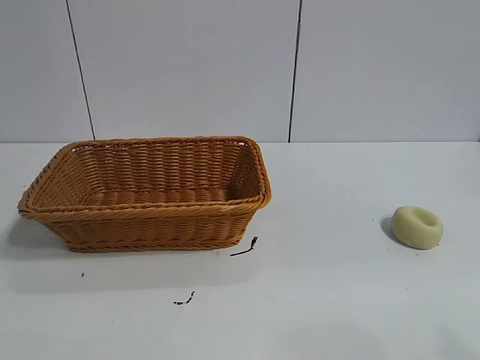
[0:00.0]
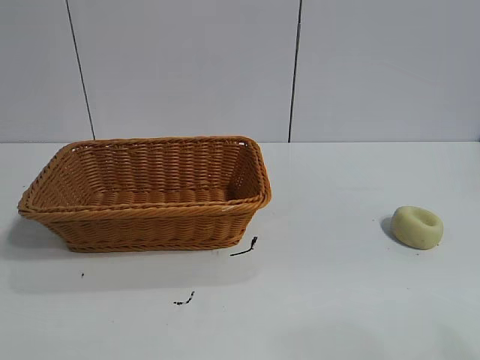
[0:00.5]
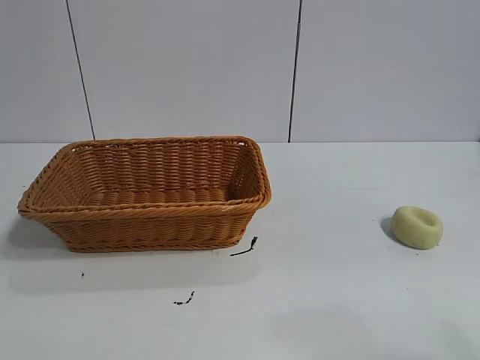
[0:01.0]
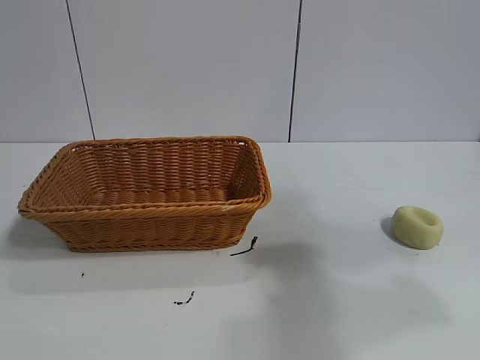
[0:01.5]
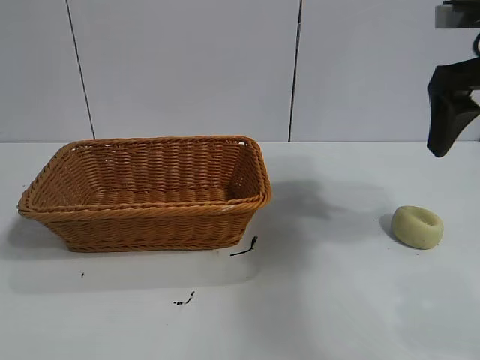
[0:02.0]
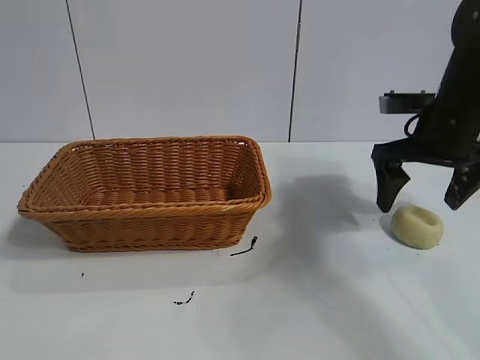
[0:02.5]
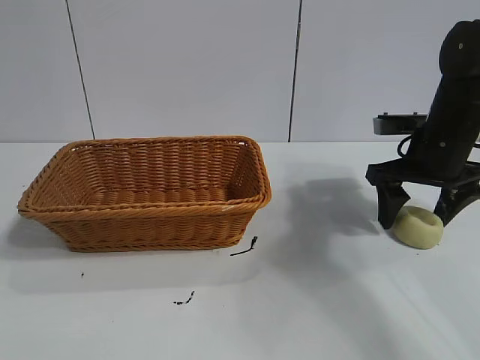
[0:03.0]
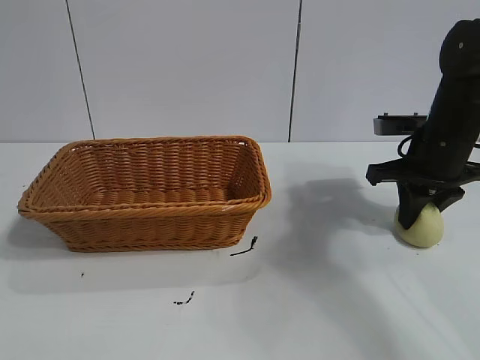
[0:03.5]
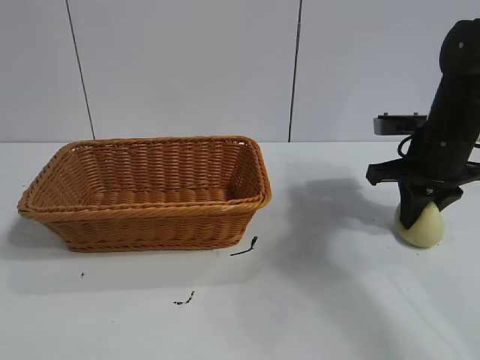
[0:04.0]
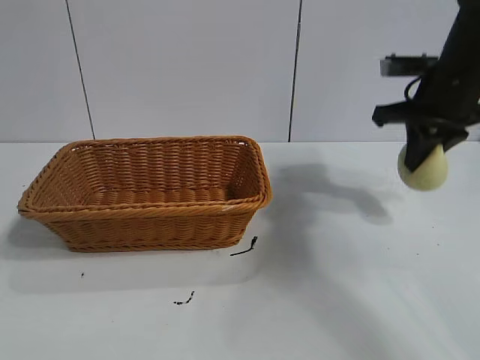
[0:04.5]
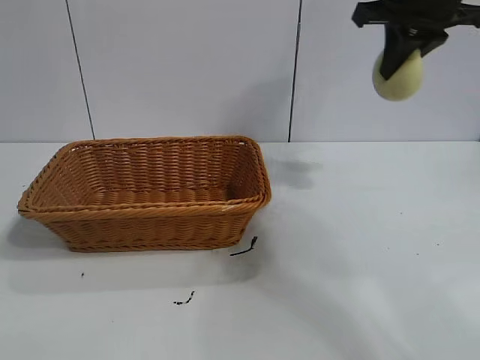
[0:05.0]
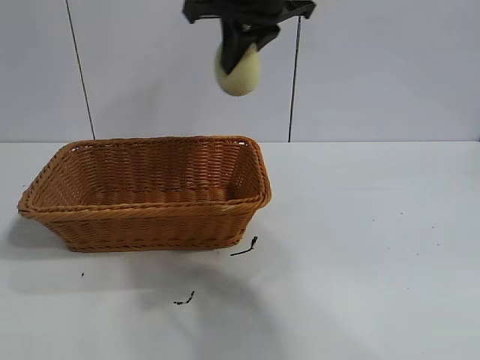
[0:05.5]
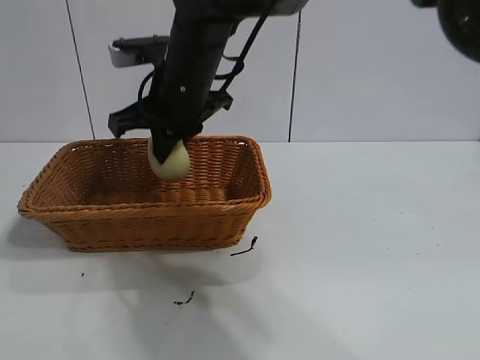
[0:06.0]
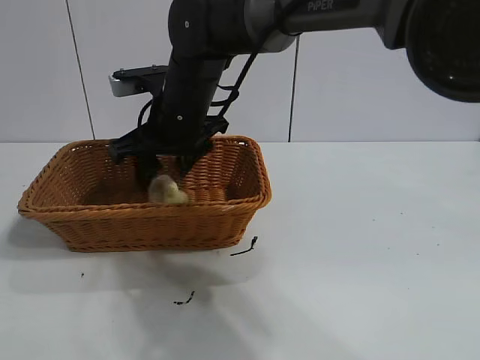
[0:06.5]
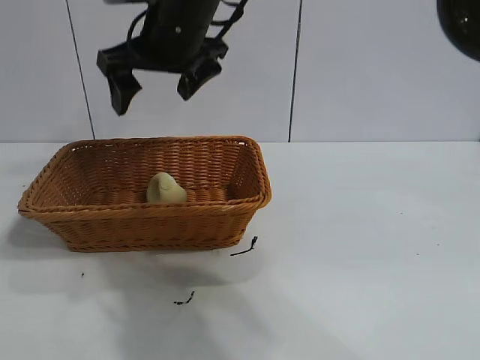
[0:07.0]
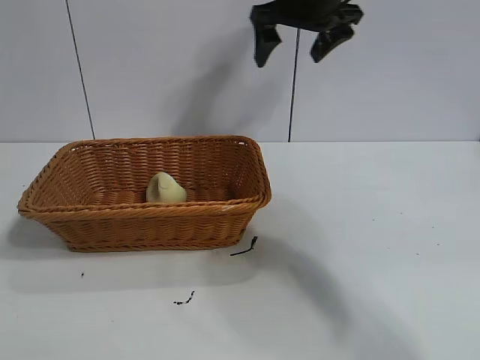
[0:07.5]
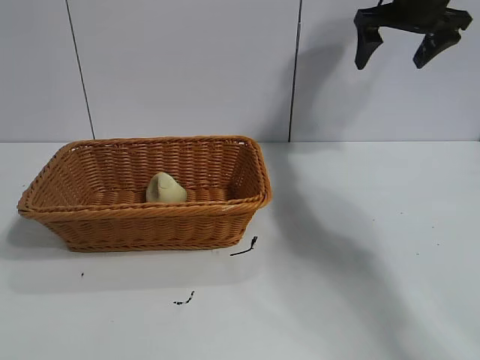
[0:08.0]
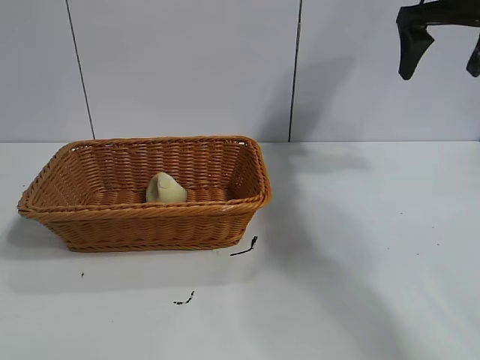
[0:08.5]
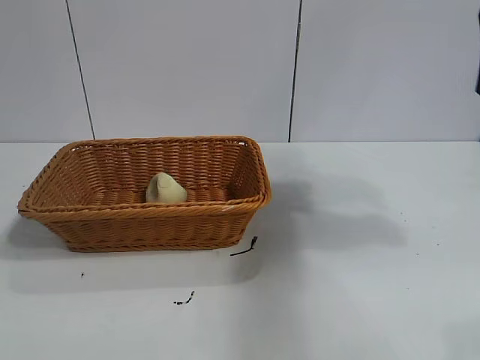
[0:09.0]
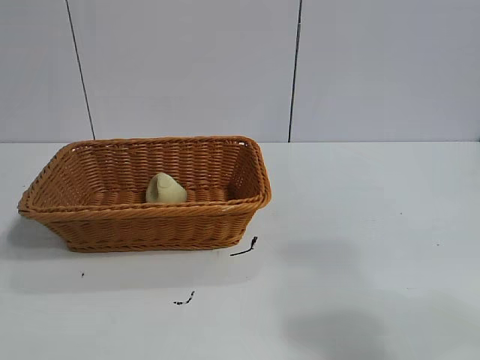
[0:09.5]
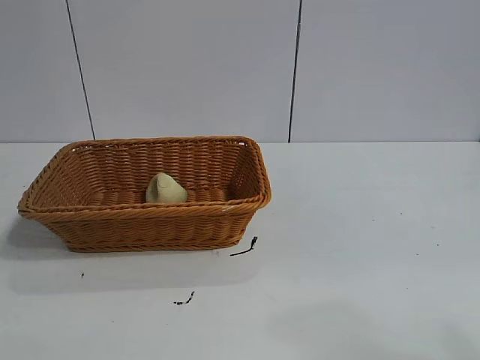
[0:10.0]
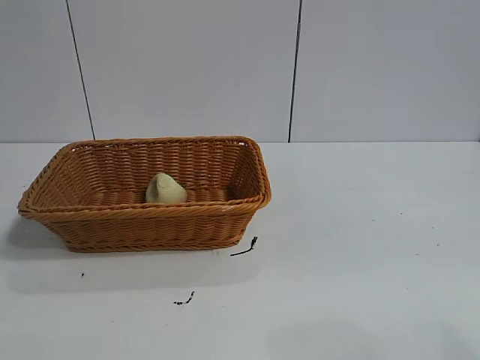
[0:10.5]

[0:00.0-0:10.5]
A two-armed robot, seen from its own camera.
Task of the whole recording: pick up the egg yolk pastry and put it into the basket.
Step, 0:01.0 to 0:04.0: Grasp egg yolk pastry with right gripper.
Step, 0:04.5 to 0:06.5: Place the egg yolk pastry in the basket with right gripper.

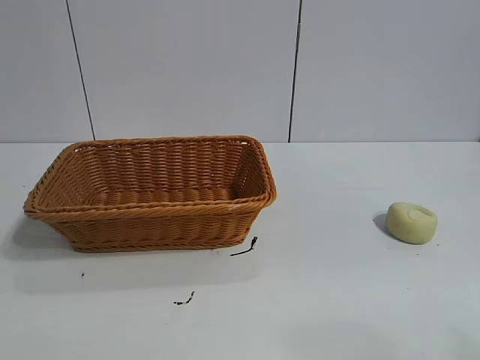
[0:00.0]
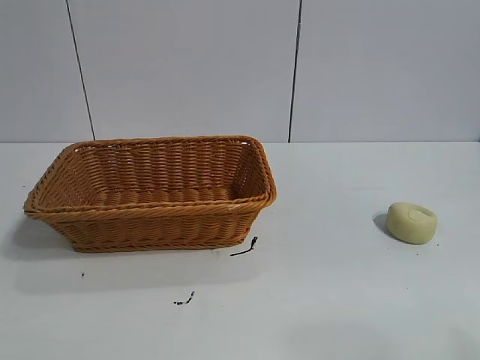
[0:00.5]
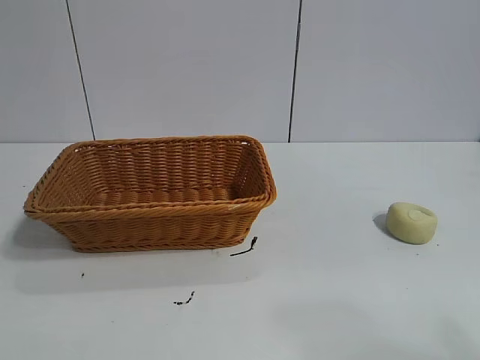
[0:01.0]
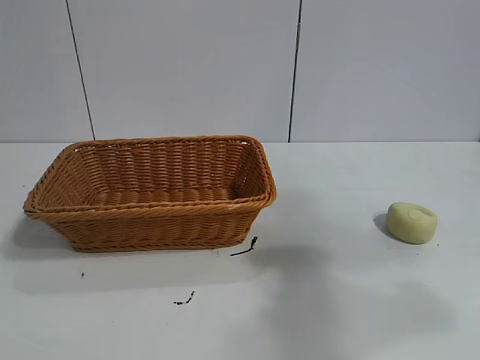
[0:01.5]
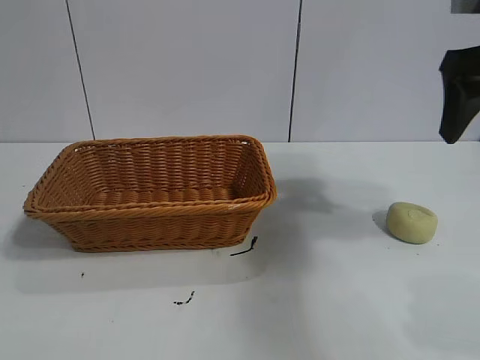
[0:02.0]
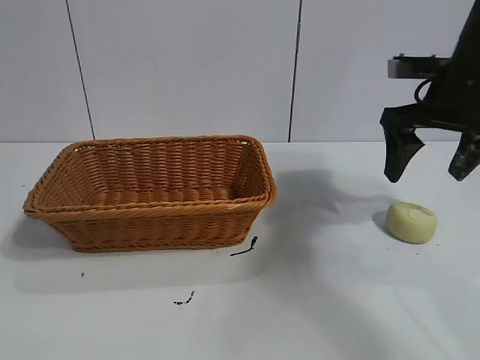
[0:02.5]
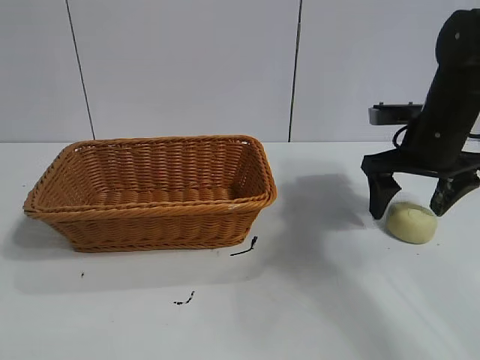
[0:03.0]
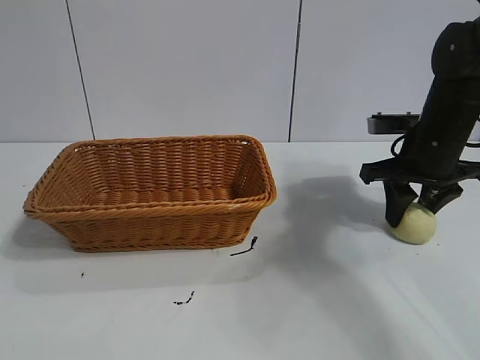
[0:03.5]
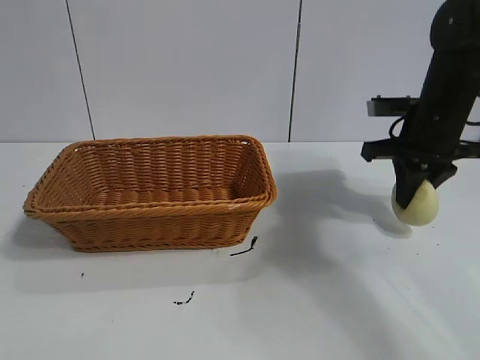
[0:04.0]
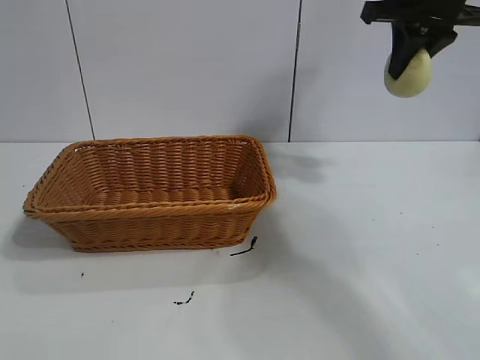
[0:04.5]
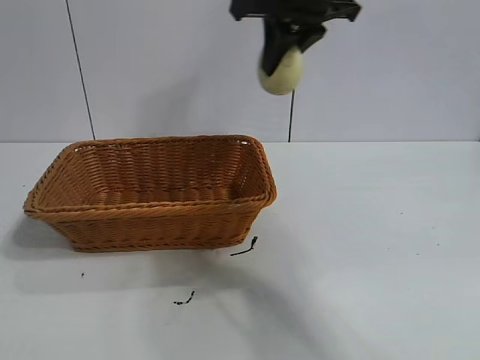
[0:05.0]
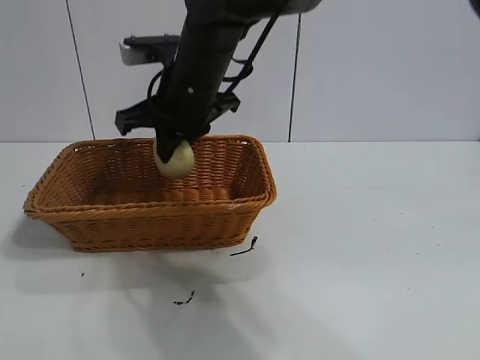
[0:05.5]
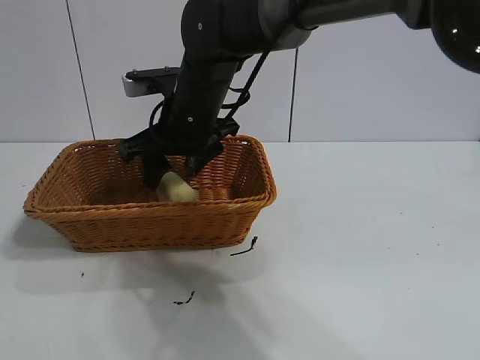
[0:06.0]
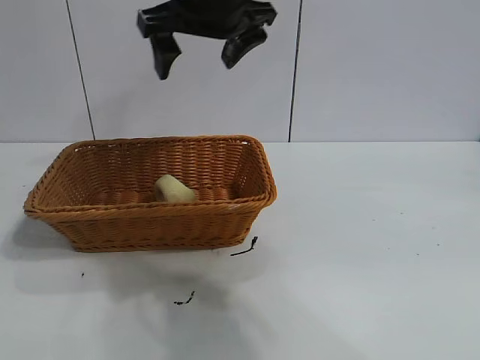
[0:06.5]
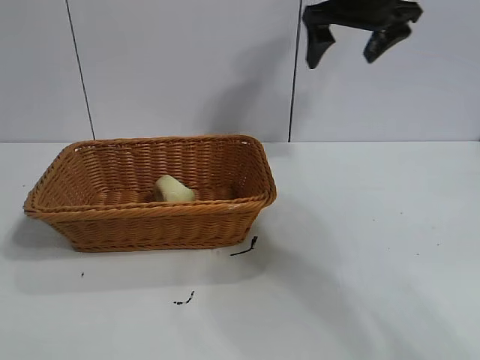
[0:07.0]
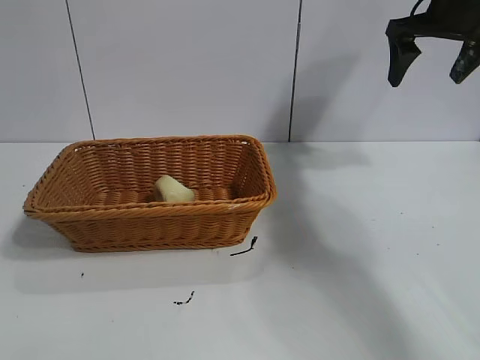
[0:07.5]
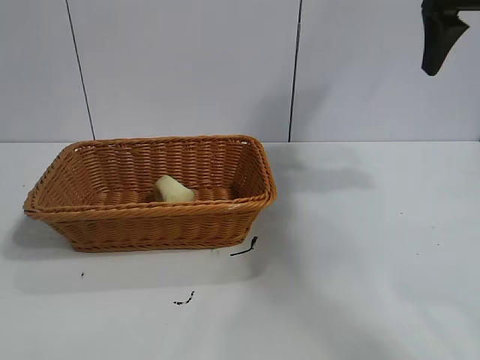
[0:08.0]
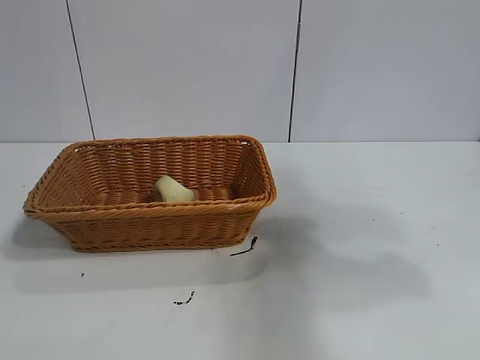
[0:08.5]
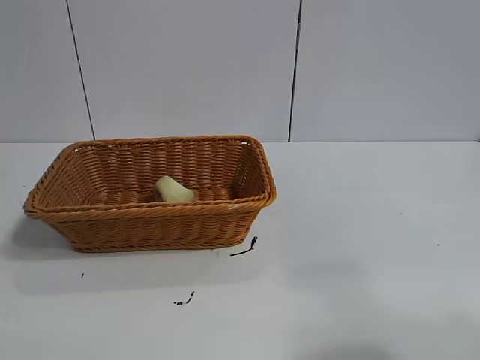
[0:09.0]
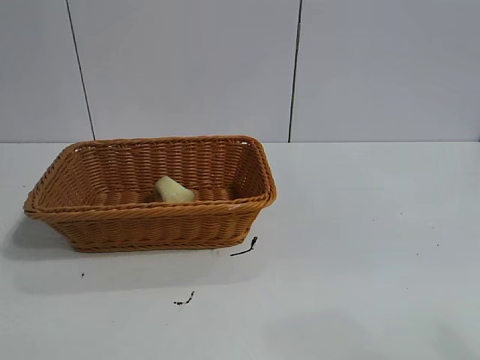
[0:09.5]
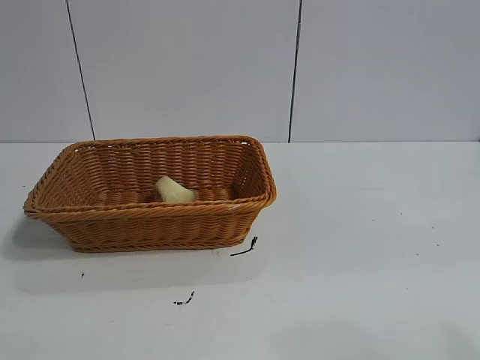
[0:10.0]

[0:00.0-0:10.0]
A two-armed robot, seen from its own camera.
Task of the whole recording: pick up the egg yolk pastry and put it into the basket.
Step, 0:01.0 to 0:03.5: Grasp egg yolk pastry with right gripper.
Step, 0:04.0 to 0:06.0: Place the egg yolk pastry in the basket with right gripper.
